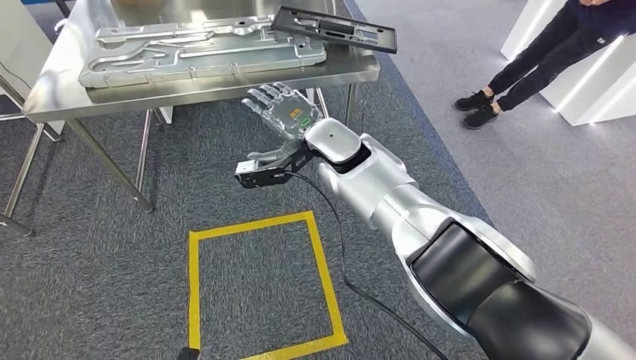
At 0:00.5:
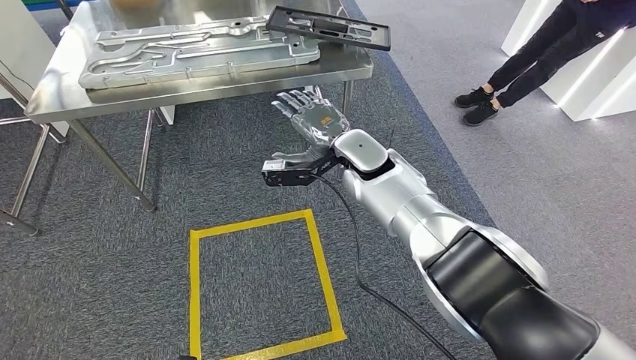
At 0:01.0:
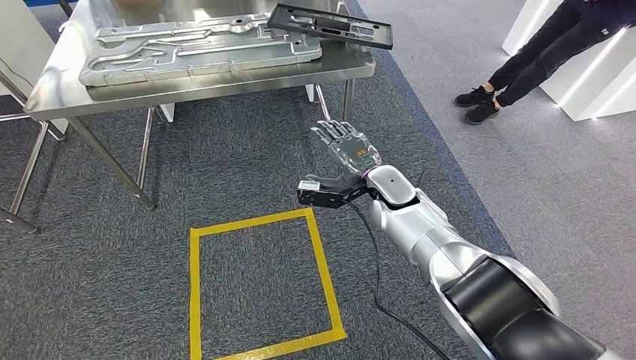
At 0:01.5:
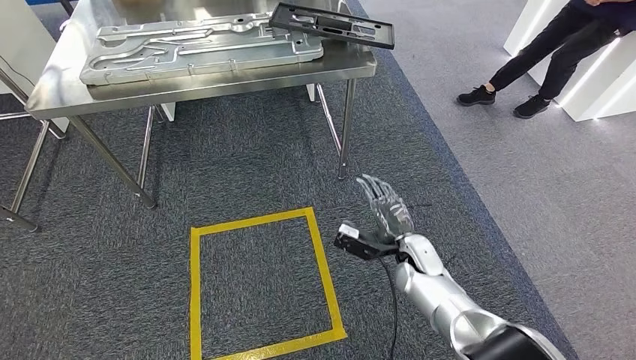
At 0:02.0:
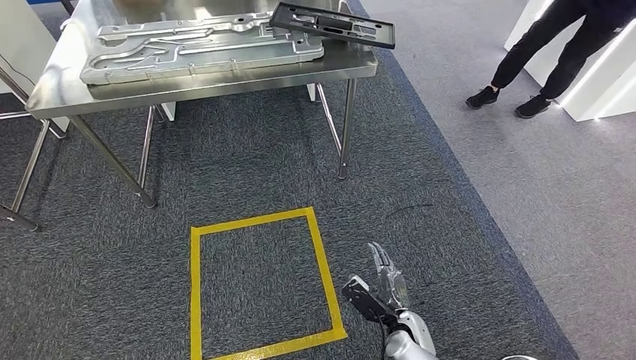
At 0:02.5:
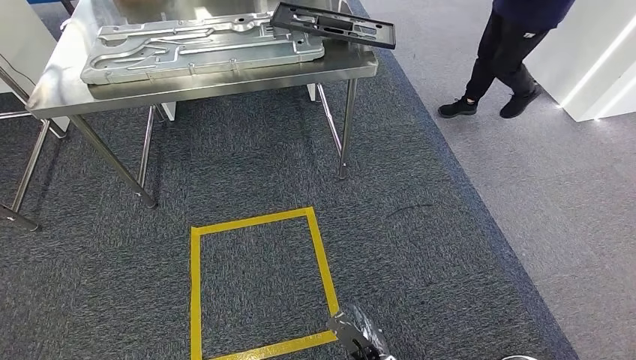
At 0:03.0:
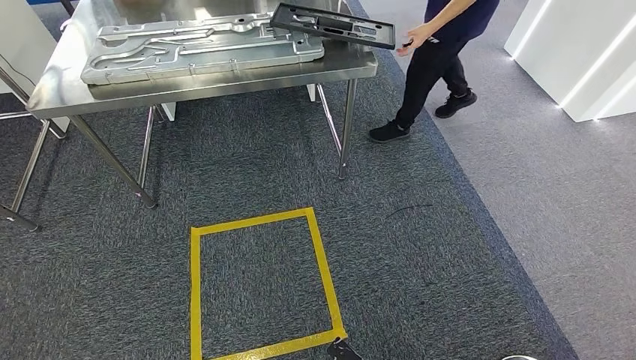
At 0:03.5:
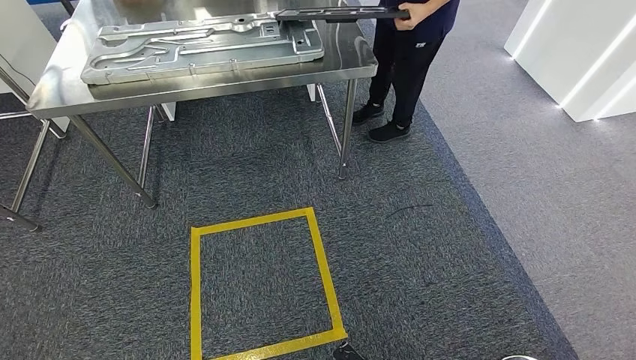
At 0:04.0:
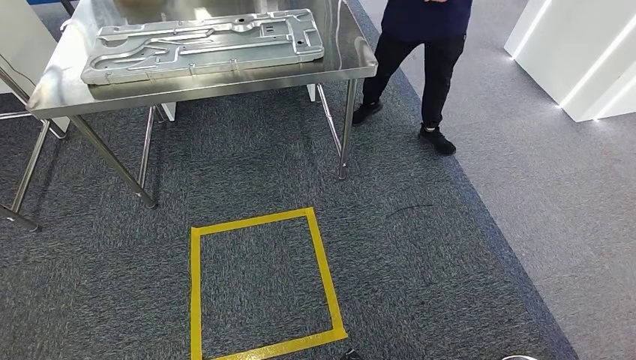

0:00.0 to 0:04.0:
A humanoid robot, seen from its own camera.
Step, 0:00.0 to 0:04.0: Return to the initial position at the shelf.
0:02.0 to 0:04.0: The right hand shifts approximately 15 cm backward and downward.
